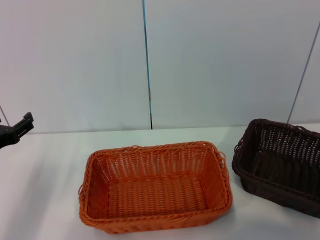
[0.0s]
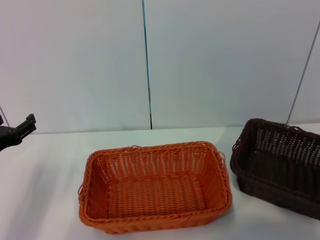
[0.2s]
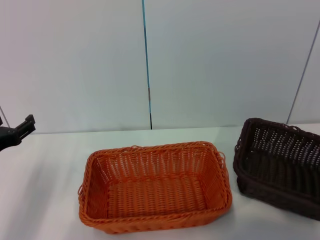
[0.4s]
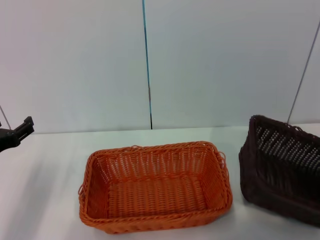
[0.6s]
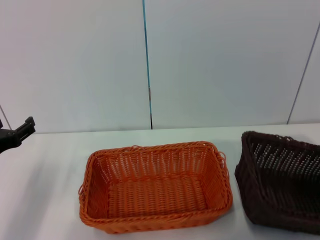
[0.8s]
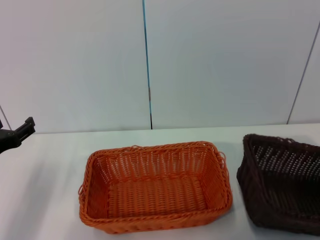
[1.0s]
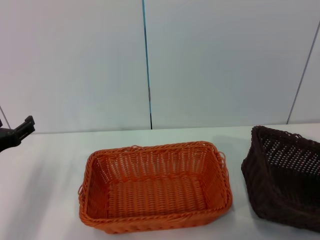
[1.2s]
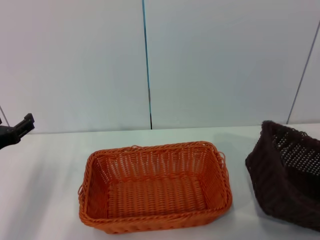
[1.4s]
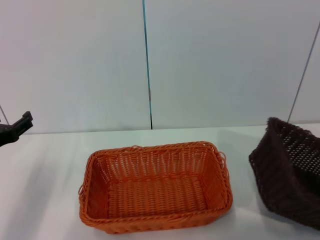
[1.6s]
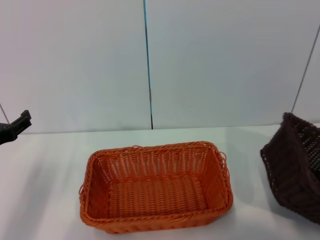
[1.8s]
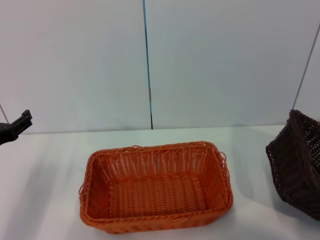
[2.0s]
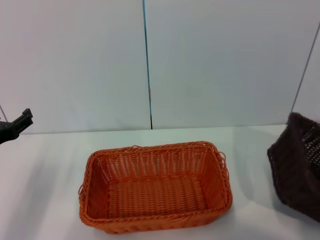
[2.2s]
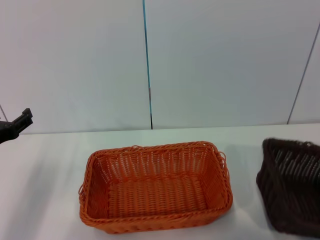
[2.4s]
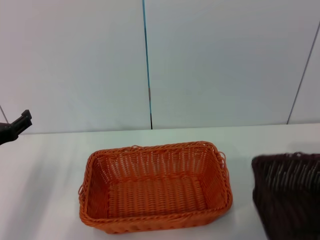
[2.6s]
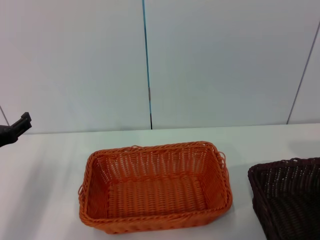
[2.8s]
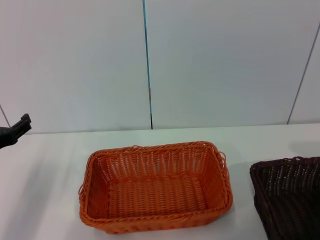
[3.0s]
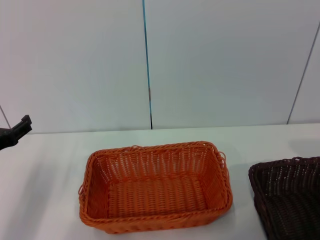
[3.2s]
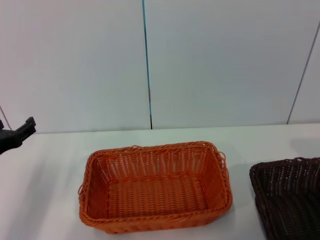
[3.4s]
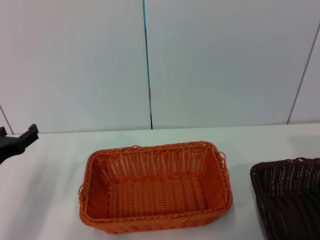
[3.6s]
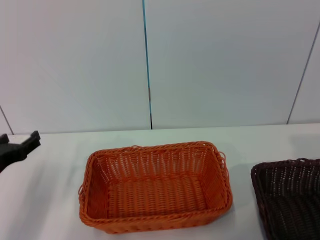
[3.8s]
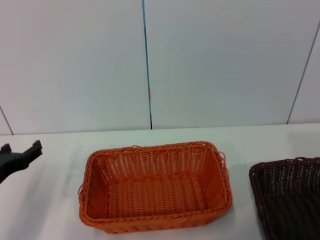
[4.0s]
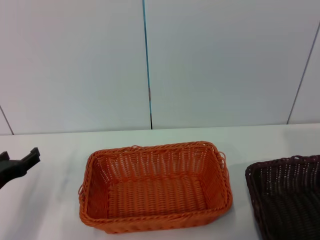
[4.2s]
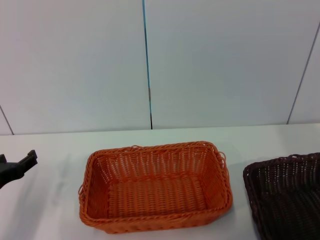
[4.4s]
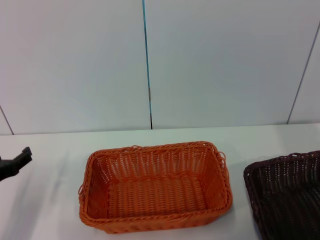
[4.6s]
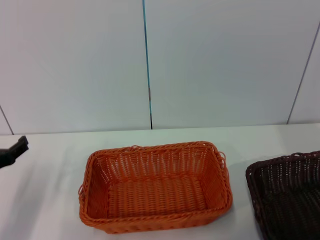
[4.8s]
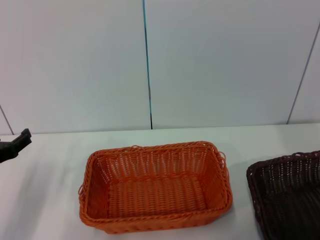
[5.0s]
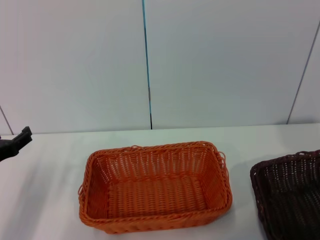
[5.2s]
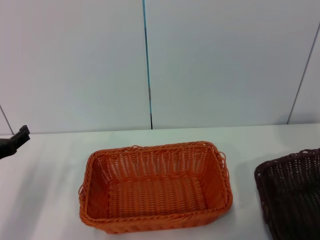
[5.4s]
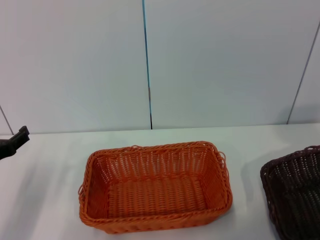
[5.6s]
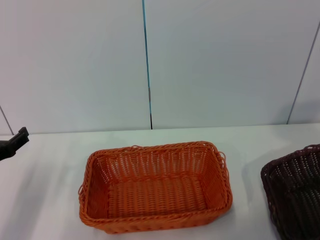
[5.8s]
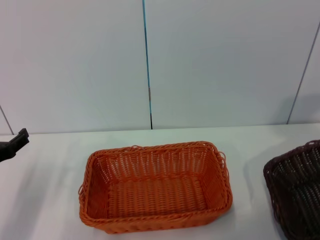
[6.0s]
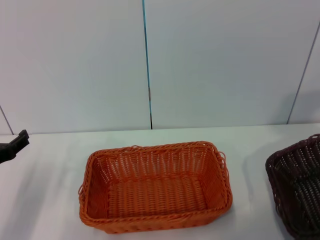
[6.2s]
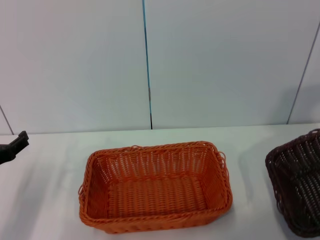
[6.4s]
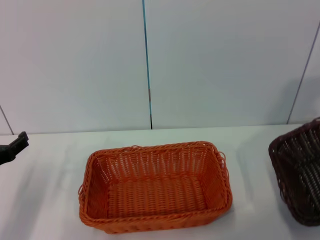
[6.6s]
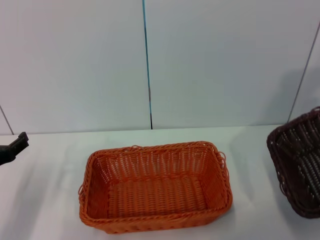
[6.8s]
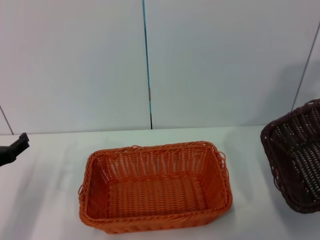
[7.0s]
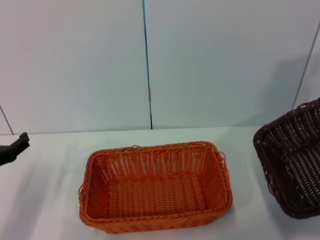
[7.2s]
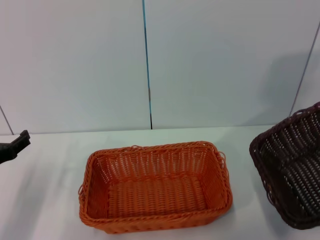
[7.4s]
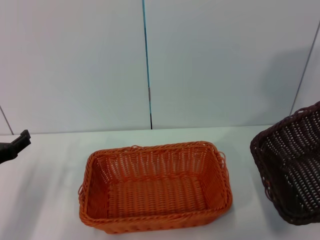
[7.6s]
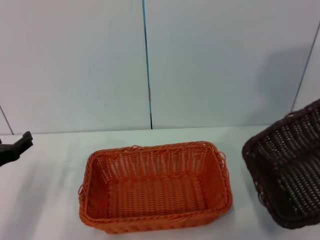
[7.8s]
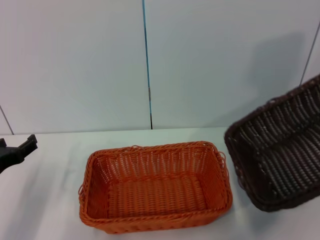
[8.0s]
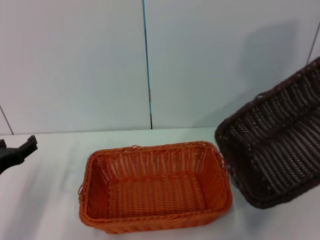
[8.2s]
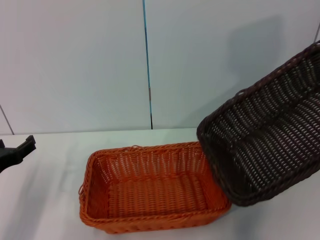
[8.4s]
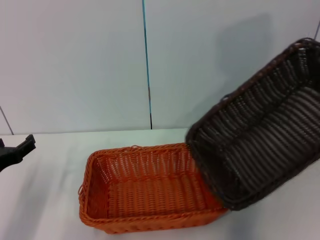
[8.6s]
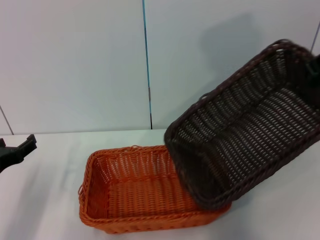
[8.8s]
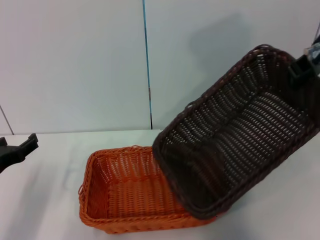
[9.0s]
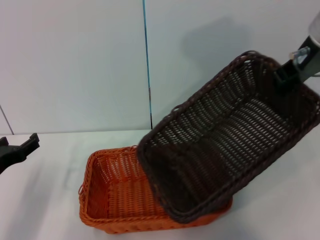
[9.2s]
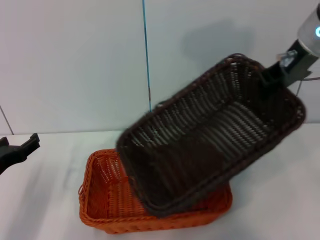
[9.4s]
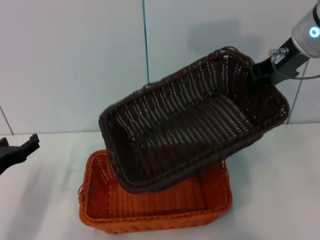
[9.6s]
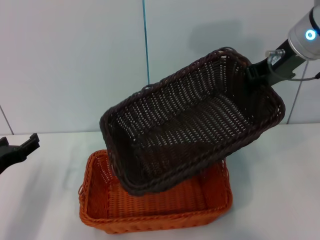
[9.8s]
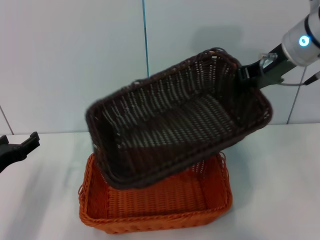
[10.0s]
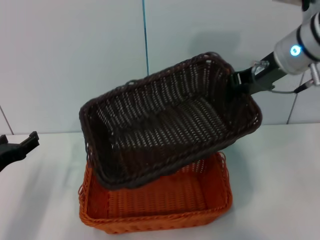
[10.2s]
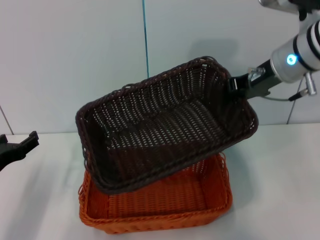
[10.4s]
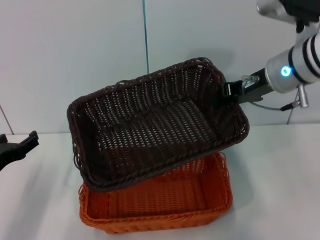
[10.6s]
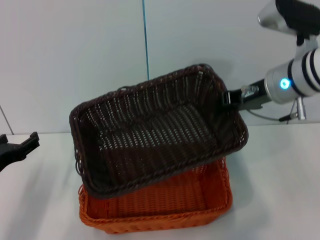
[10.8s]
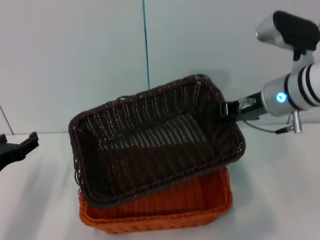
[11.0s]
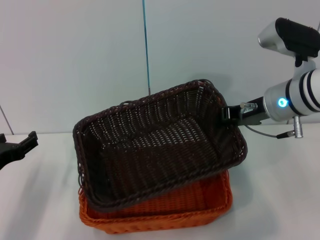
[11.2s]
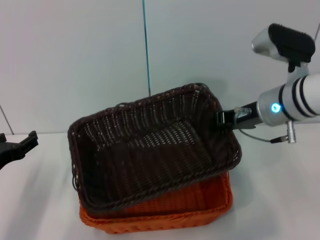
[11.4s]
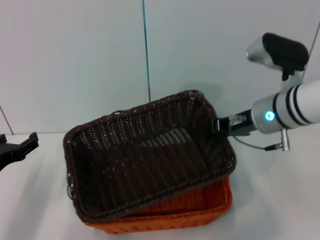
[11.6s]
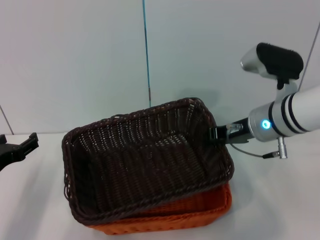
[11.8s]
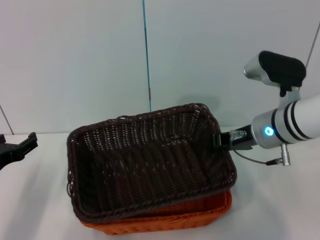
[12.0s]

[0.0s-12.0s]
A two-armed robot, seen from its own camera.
Step, 0.0s to 4.2s: Pick up the dark basket with the right gripper.
0.0s to 1.6s: The right gripper closes.
1.6s to 3.0s: The right gripper closes.
3.0s to 4.4s: The right gripper goes some 5 cm upward.
4.4s to 6.0s: The right gripper goes about 10 cm upward.
6.0s to 7.6s: The right gripper goes roughly 10 cm upward.
7.6s to 9.0s: The right gripper is displaced to the left and forward by approximately 15 cm.
9.0s to 10.4s: The right gripper heads downward, covering some 5 cm.
10.4s to 12.0s: The right gripper shifts roughly 10 cm downward.

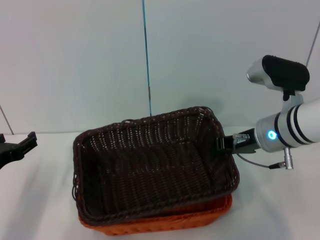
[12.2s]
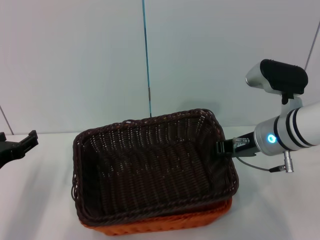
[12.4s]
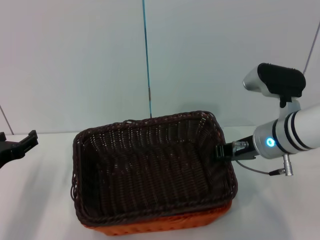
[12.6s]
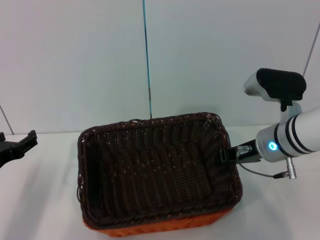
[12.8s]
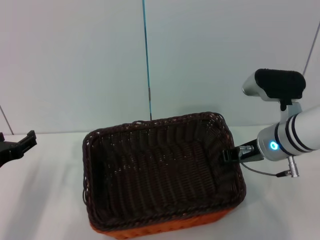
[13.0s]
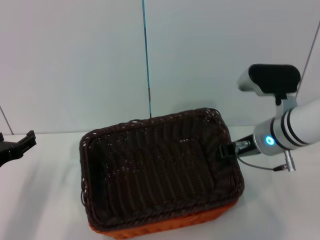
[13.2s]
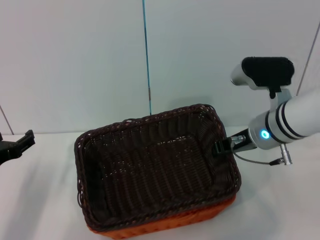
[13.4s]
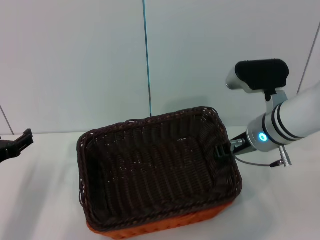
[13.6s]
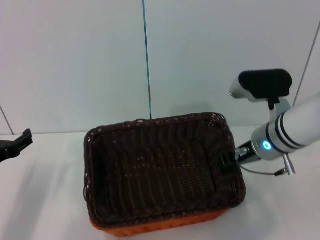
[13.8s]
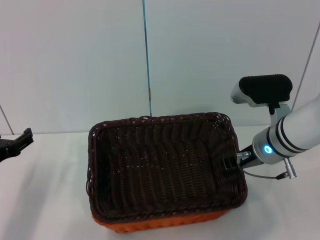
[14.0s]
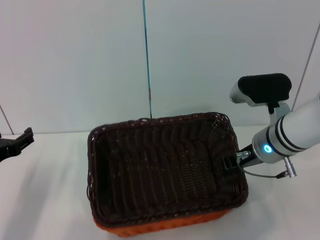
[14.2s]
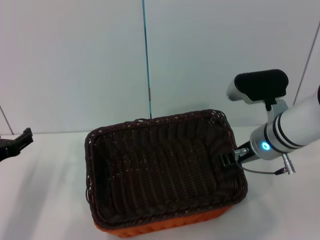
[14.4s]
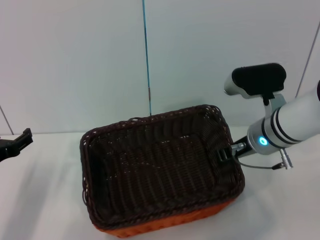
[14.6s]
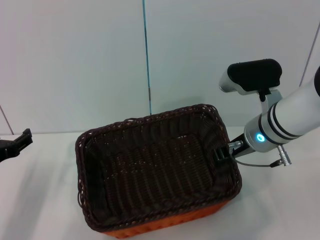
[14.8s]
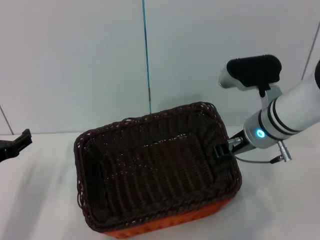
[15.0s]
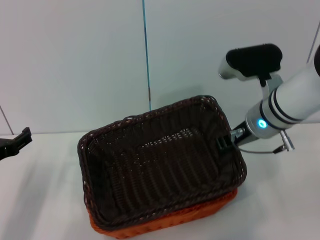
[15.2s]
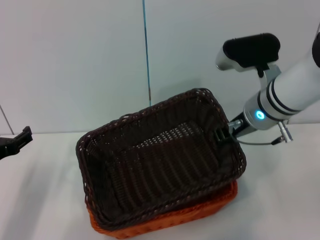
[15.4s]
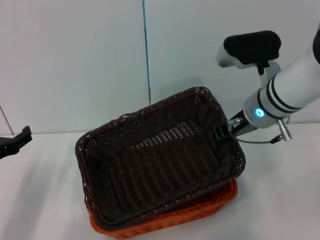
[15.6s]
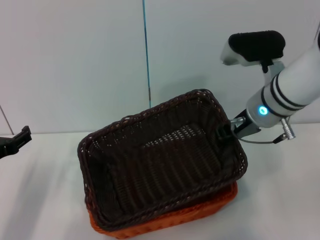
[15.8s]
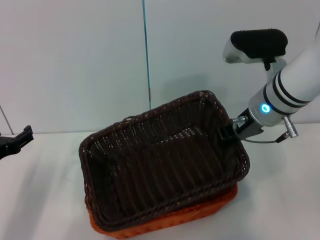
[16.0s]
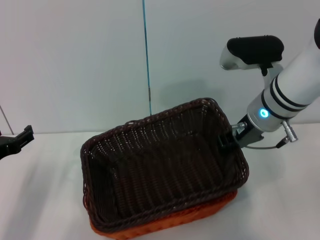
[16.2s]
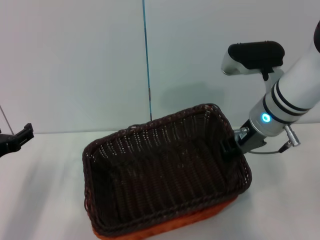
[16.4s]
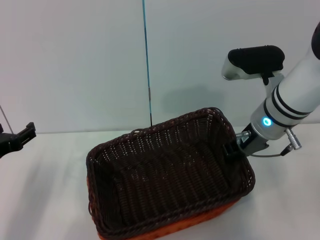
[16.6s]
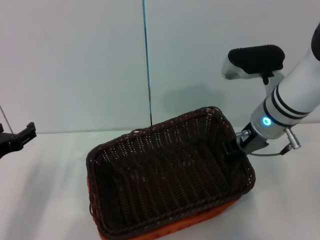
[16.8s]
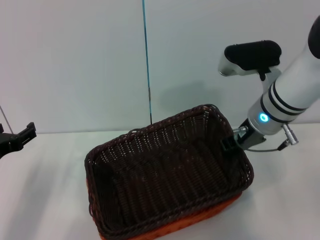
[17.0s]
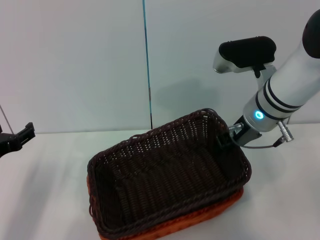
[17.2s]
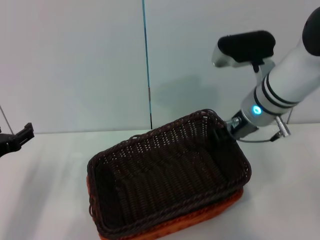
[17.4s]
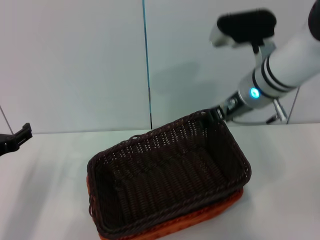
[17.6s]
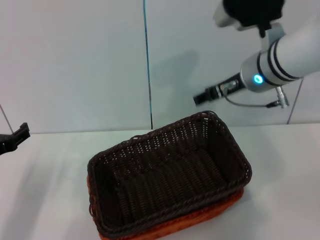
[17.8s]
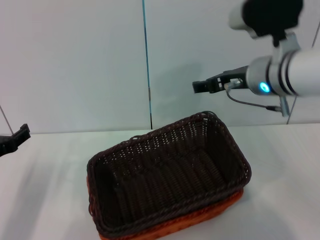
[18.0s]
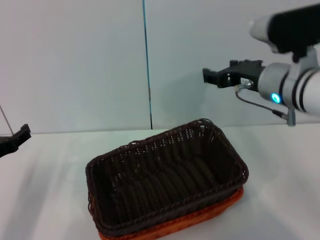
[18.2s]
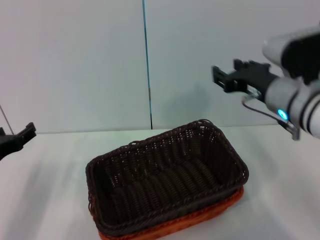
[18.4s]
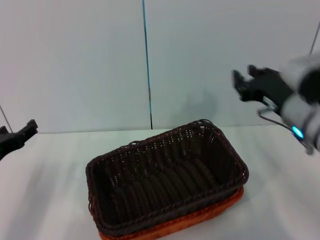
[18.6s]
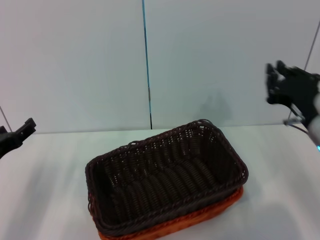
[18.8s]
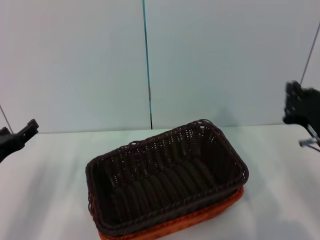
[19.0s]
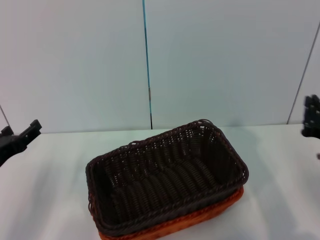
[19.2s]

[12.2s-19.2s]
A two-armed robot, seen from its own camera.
Step, 12.2s to 18.0s: Place the dark basket on the light basket with the right gripper.
12.2s to 15.0s: The grippers make only small movements.
15.0s to 16.4s: The grippers make only small movements.
16.4s to 17.8s: The right gripper goes roughly 5 cm upward, and opens its fingers.
17.8s to 19.2s: The right gripper moves downward, to the right and backward, about 25 cm, and closes up.

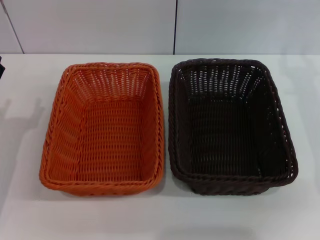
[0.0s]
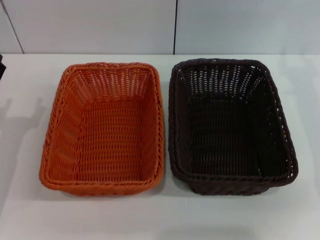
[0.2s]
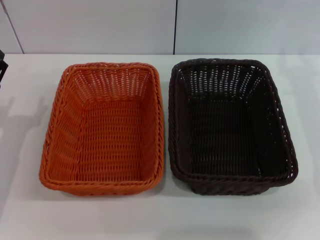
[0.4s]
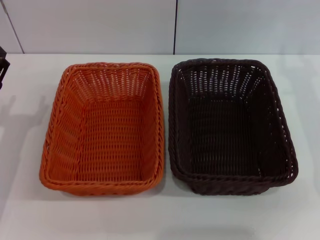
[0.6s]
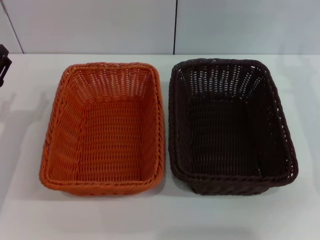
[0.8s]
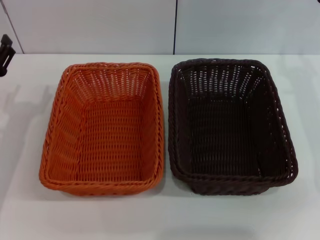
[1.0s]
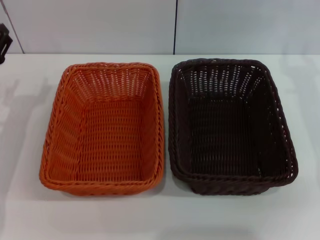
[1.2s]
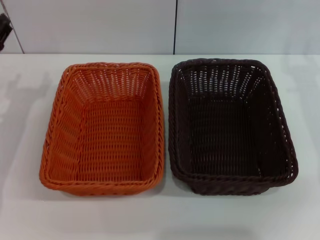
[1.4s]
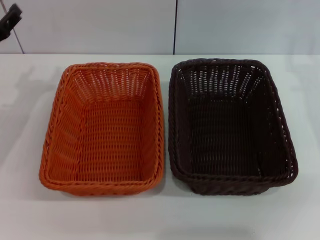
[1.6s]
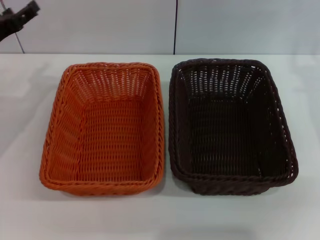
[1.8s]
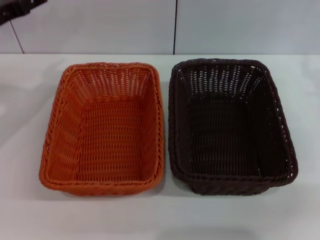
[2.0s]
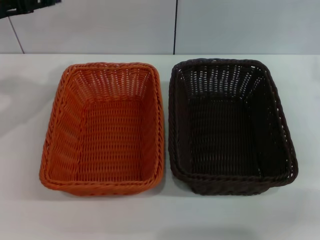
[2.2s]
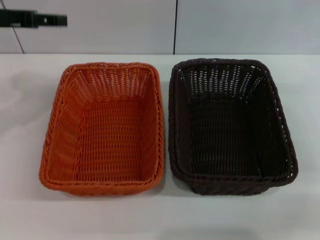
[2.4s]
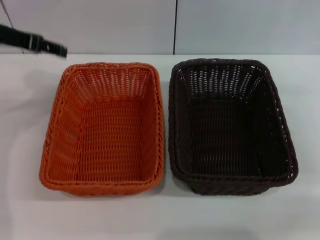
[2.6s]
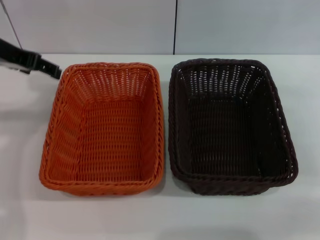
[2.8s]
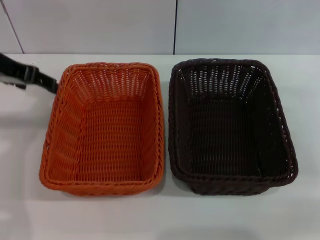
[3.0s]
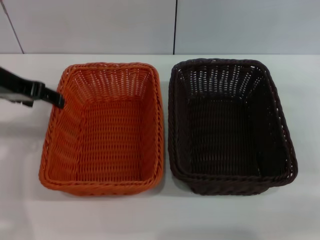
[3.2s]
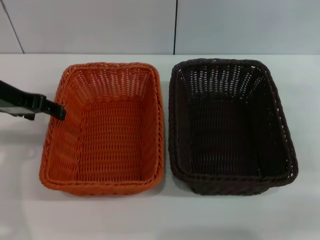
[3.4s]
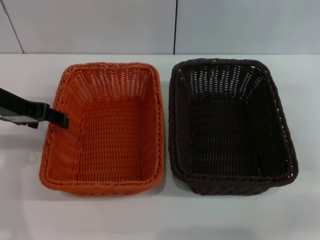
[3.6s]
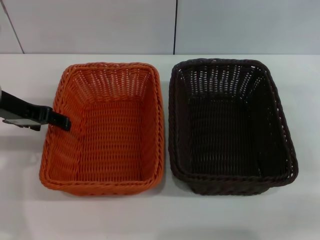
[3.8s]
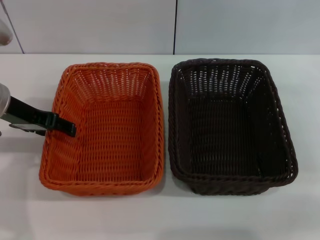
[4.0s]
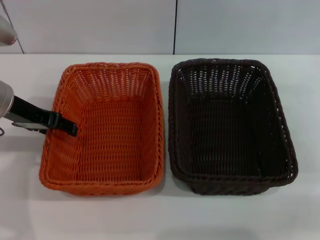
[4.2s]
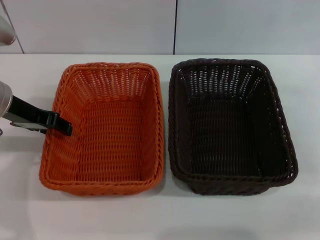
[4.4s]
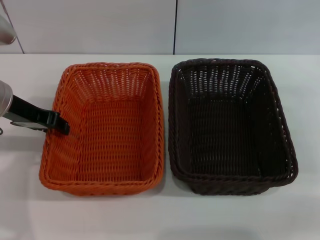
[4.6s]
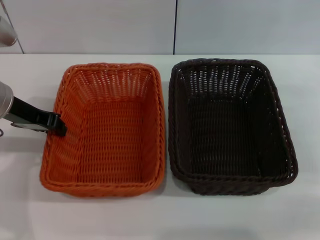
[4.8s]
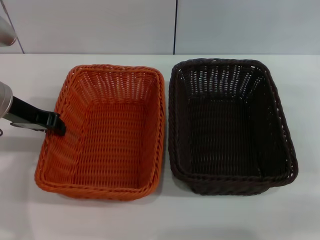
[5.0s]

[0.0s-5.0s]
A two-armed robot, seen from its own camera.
0.0s to 1.6s: The left gripper travels forward and upward by about 10 cm.
1.6s to 3.4s: The left gripper is displaced upward by about 10 cm. The right gripper moves to the right, approximately 5 cm.
3.4s to 5.0s: The left gripper closes its fingers.
